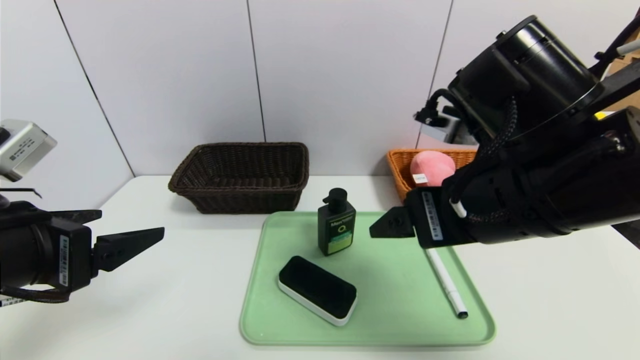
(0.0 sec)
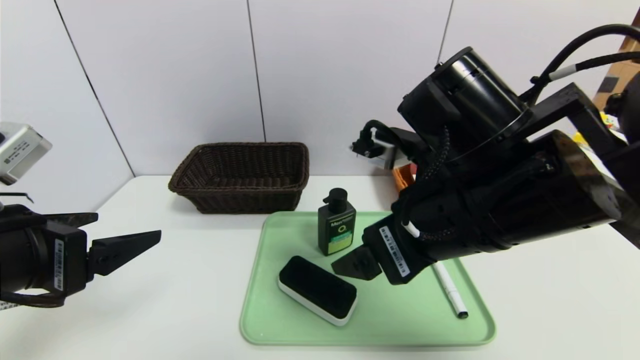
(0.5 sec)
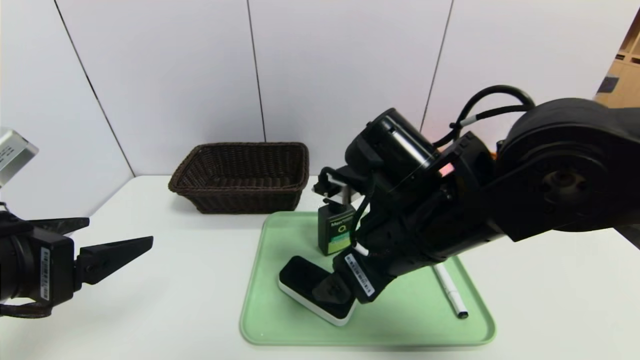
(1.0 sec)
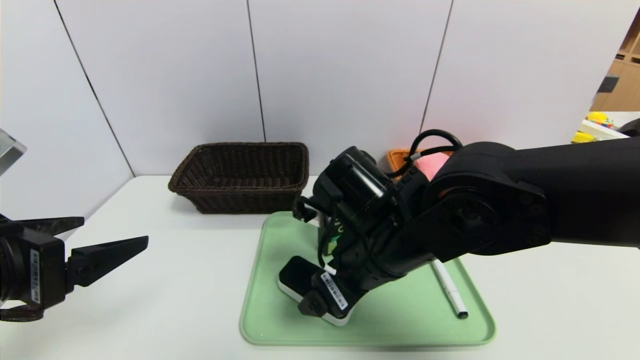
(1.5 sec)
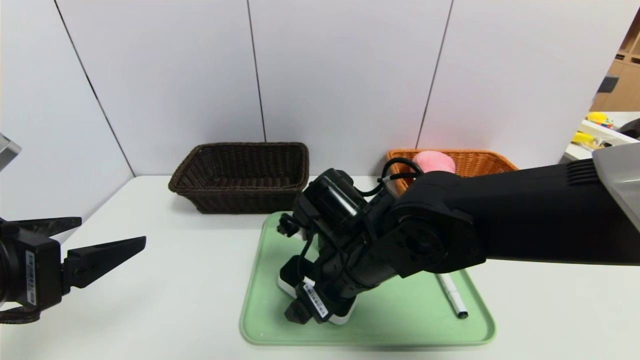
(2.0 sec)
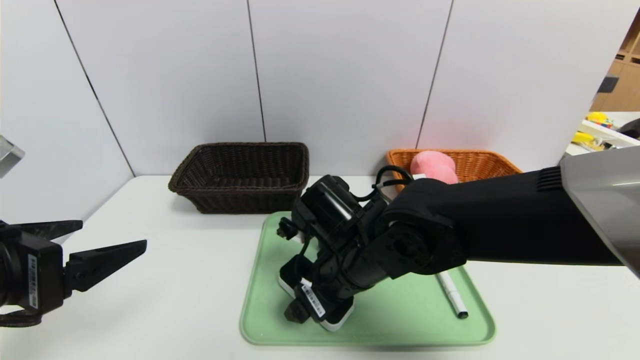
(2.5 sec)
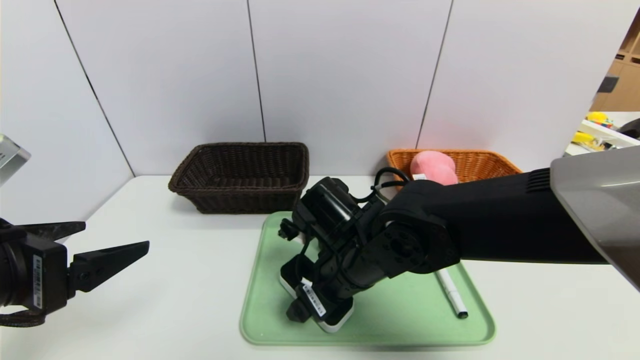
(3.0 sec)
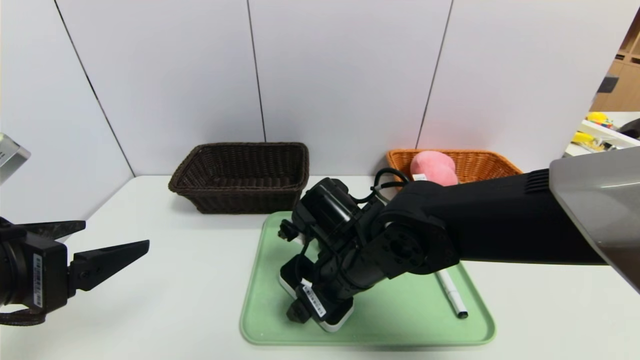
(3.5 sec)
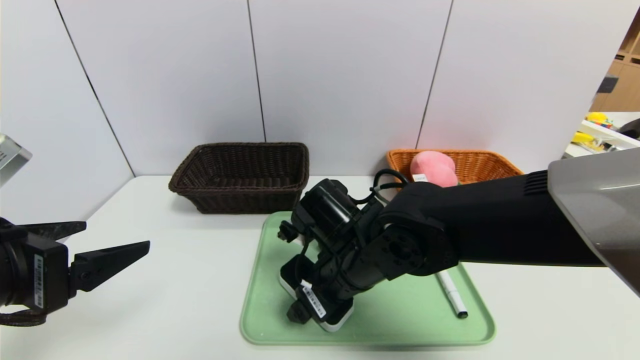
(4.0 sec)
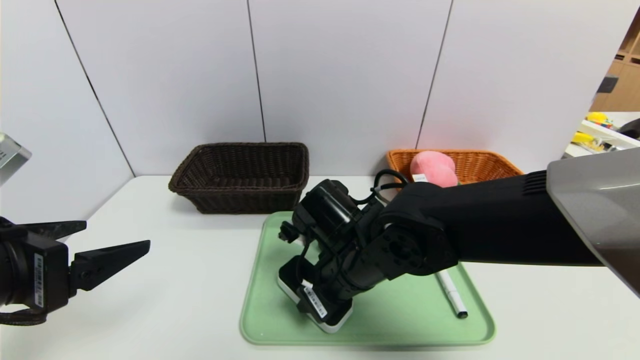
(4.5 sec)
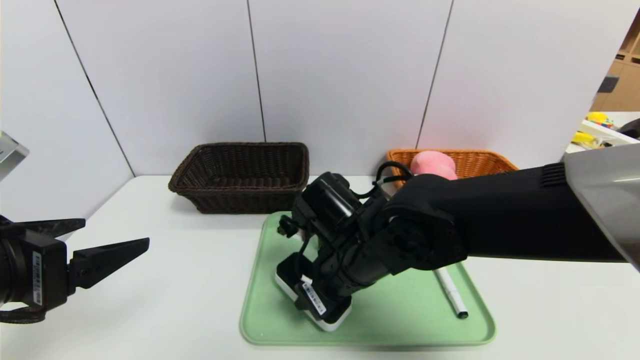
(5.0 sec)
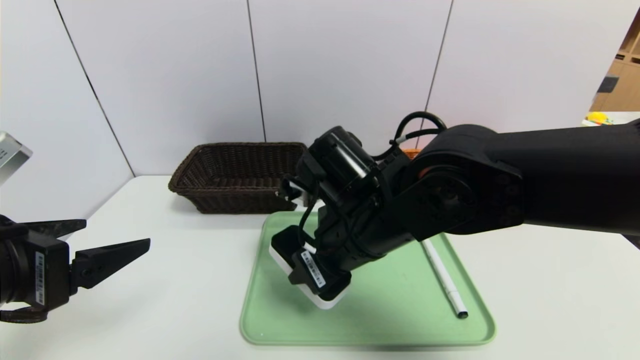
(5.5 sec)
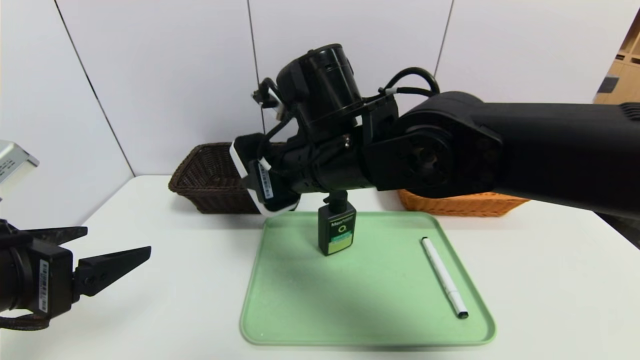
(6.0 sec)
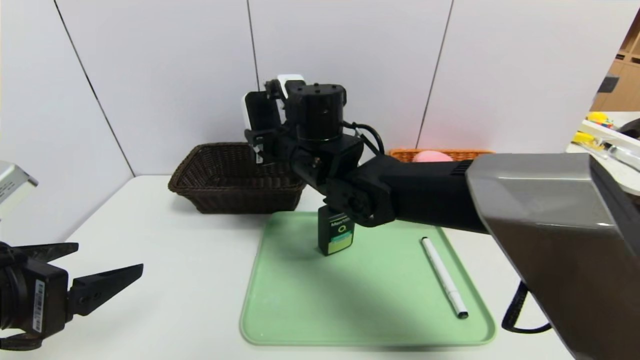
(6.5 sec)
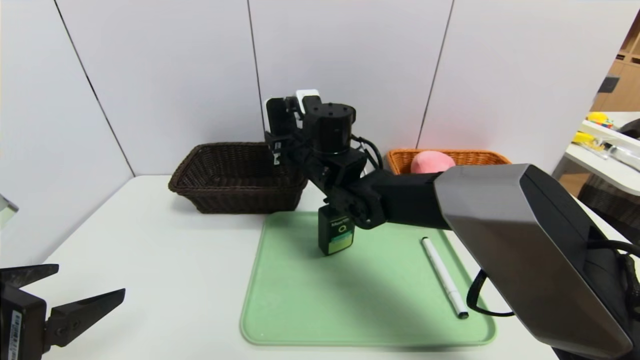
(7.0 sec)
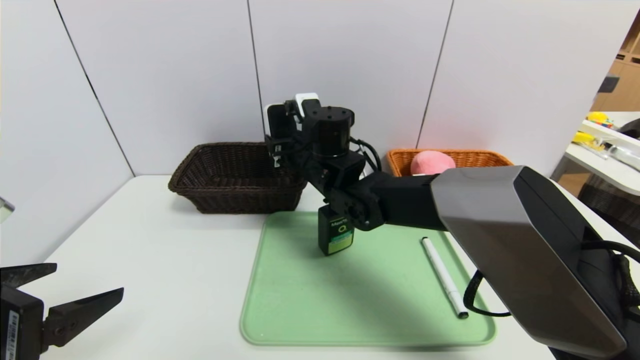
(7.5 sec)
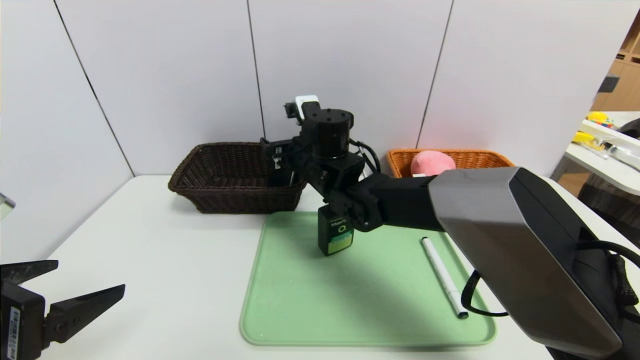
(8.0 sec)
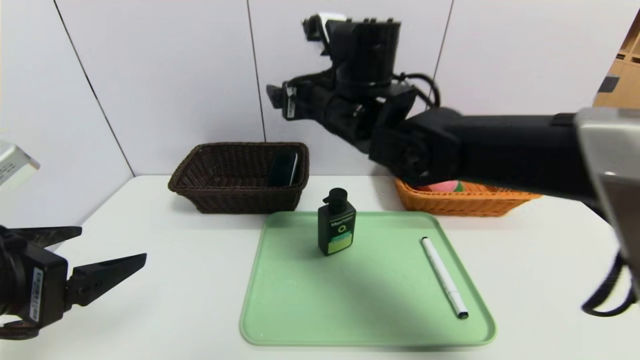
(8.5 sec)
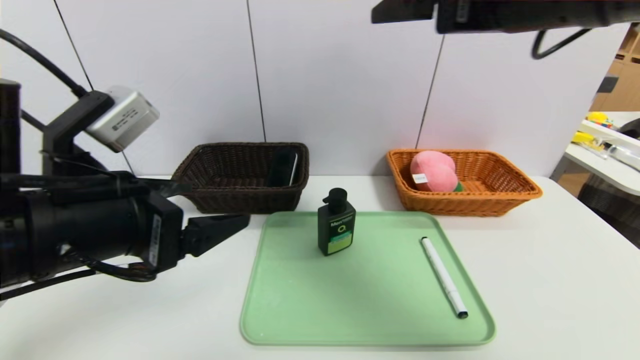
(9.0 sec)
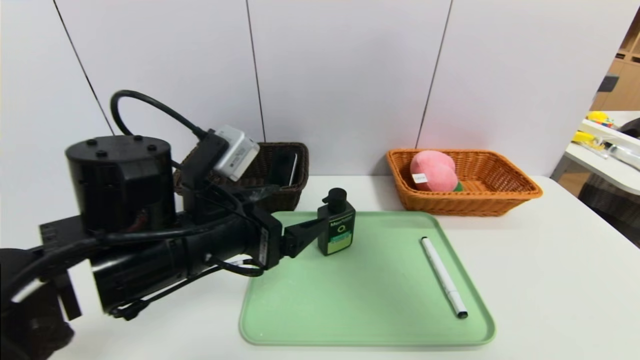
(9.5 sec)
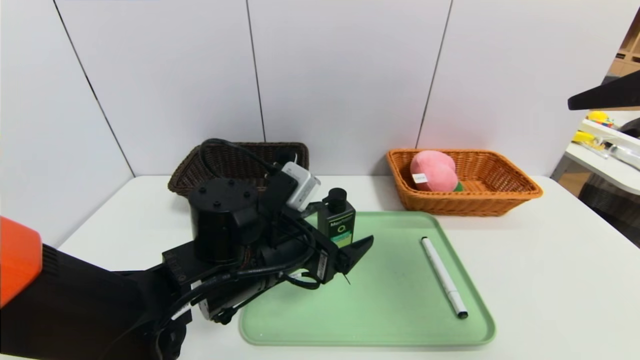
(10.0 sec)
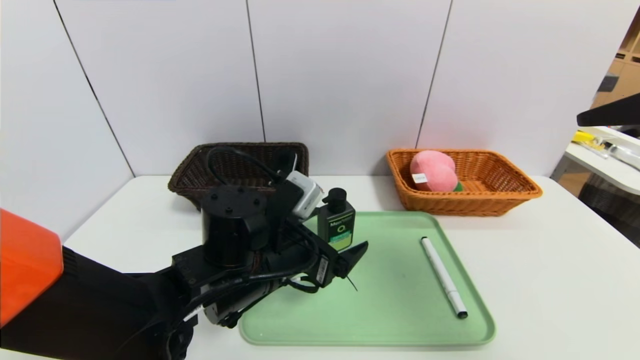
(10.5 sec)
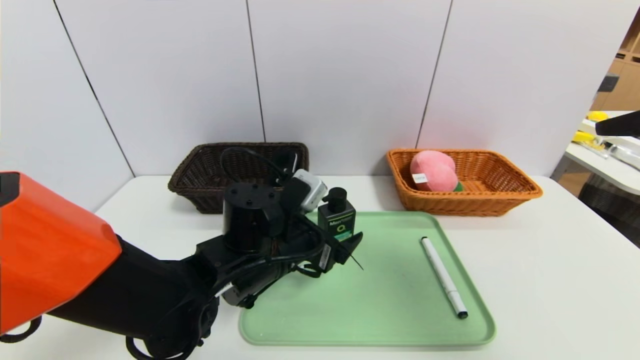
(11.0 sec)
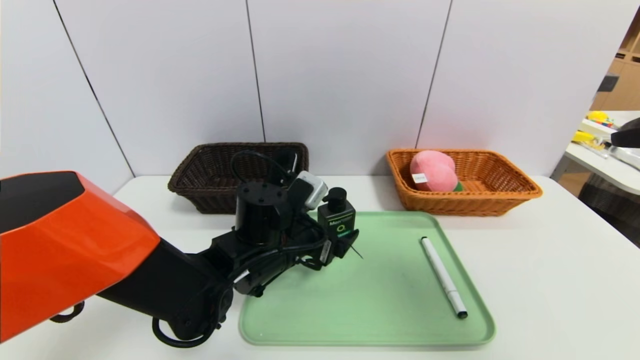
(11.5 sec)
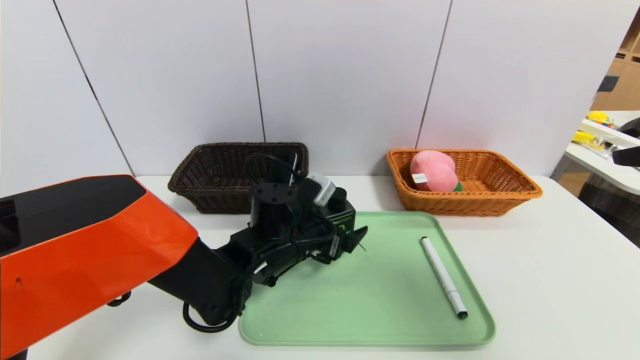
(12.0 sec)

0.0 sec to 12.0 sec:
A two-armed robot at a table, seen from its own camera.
Task of the whole recording: place the food in the right basket with the right gripper, and place the non food items in the left basket with the left gripper.
0.0 sec to 2.0 sec: The right gripper moves downward, to the left and forward, roughly 15 cm.
2.0 sec to 4.0 sec: There are only small adjustments of the grippers.
4.0 sec to 6.0 sec: The right gripper is displaced upward by about 15 cm, and closes.
6.0 sec to 8.0 sec: The right gripper goes some 15 cm forward and downward, and opens up.
8.0 sec to 10.0 sec: The left gripper goes some 25 cm to the right and forward; the right gripper is displaced to the right, backward and upward by roughly 40 cm.
10.0 sec to 12.0 sec: The left gripper goes about 10 cm forward and downward.

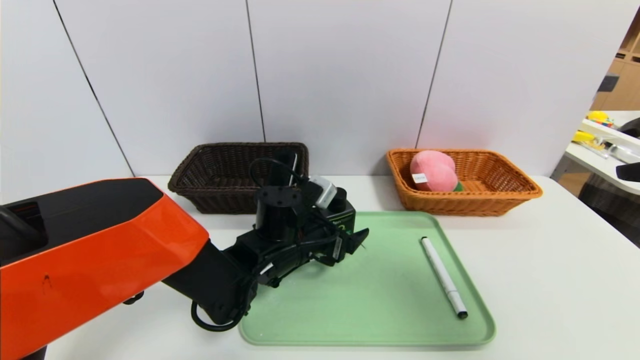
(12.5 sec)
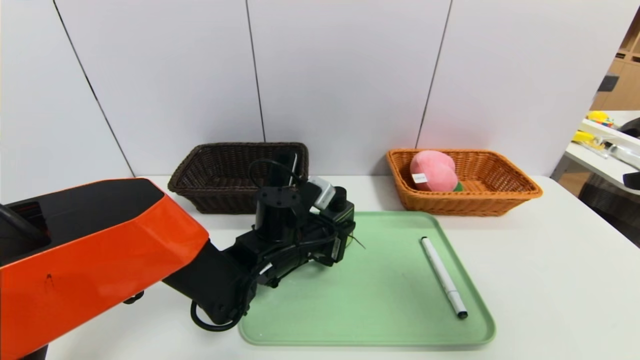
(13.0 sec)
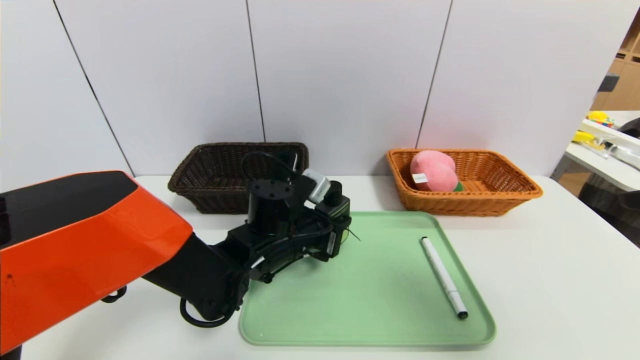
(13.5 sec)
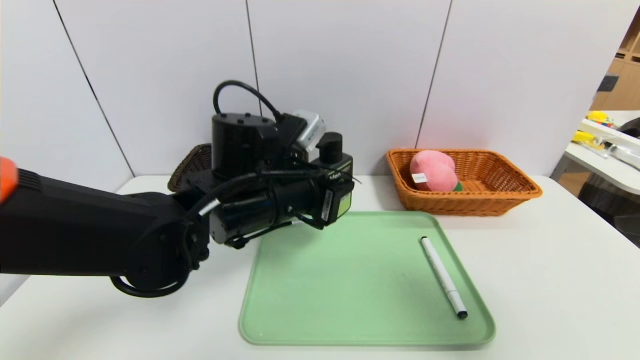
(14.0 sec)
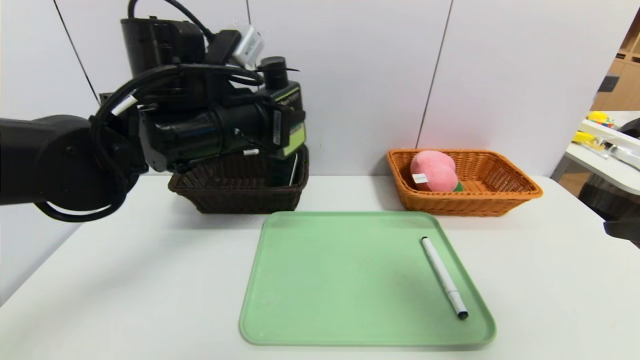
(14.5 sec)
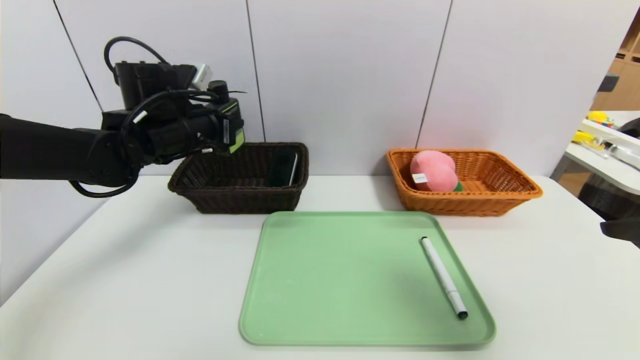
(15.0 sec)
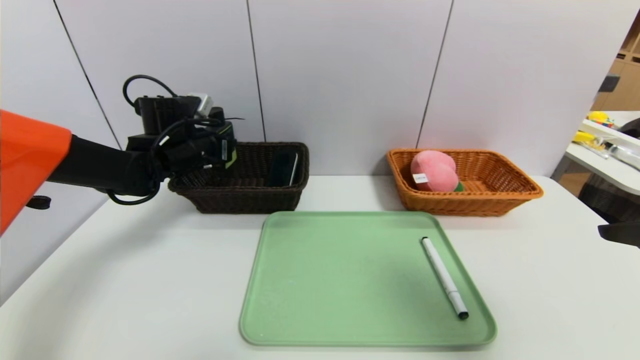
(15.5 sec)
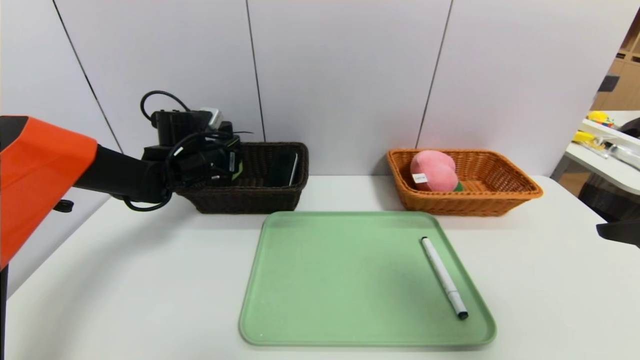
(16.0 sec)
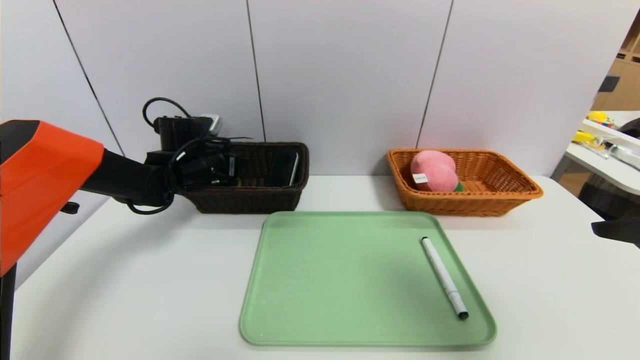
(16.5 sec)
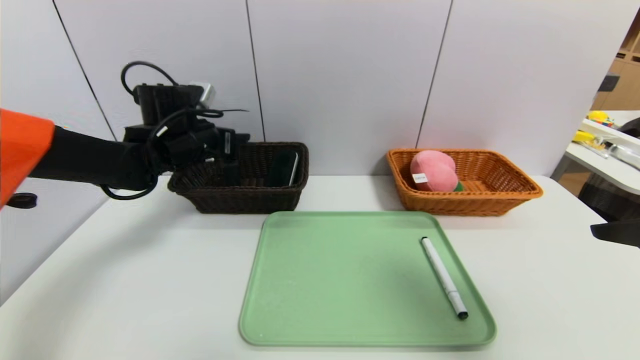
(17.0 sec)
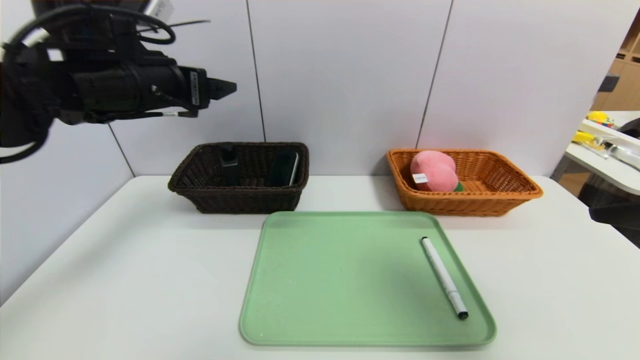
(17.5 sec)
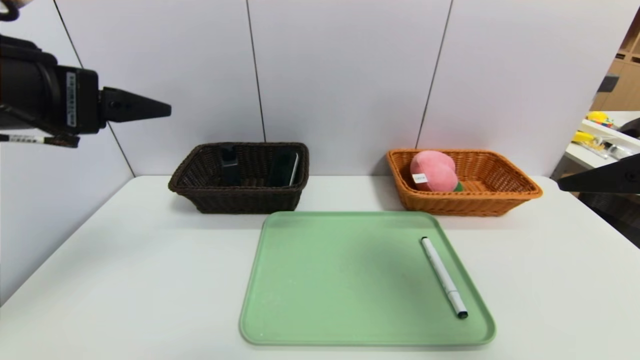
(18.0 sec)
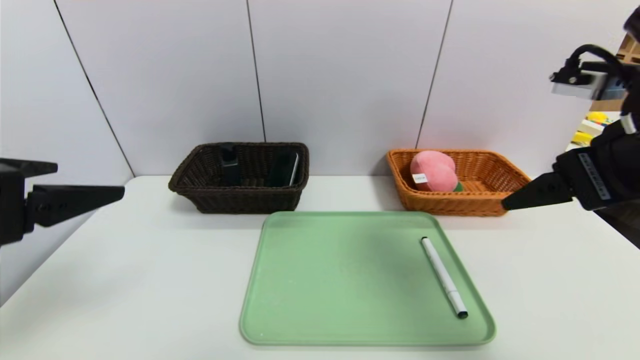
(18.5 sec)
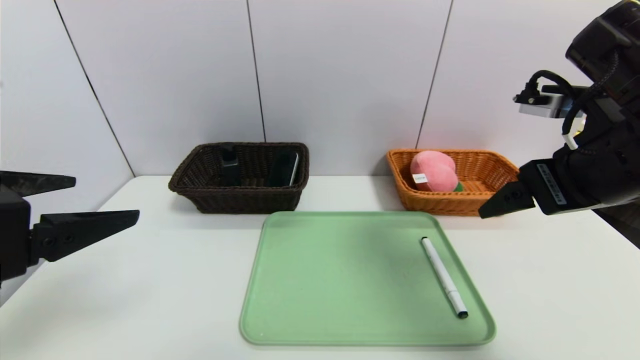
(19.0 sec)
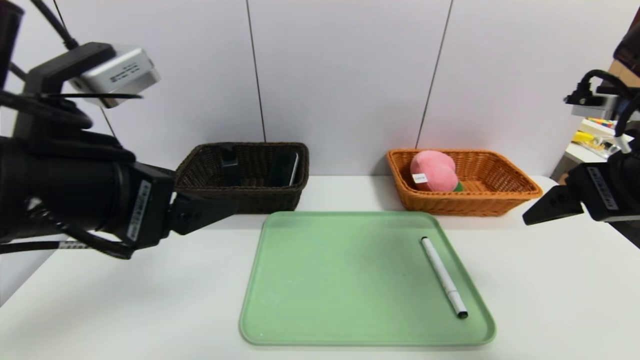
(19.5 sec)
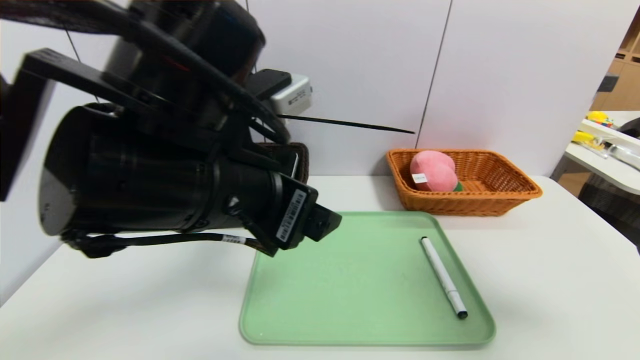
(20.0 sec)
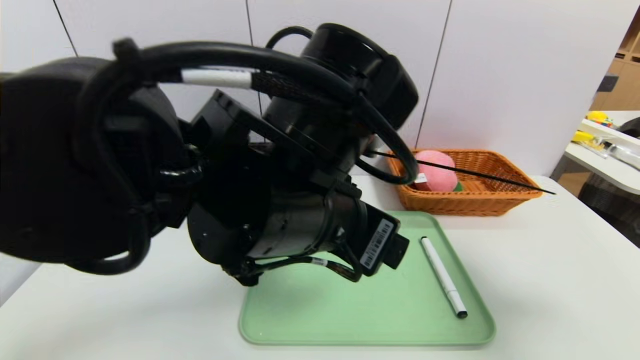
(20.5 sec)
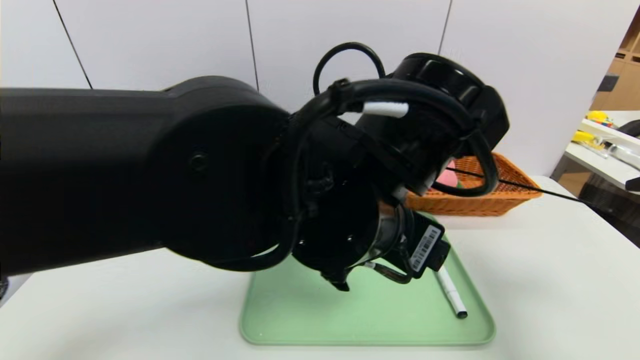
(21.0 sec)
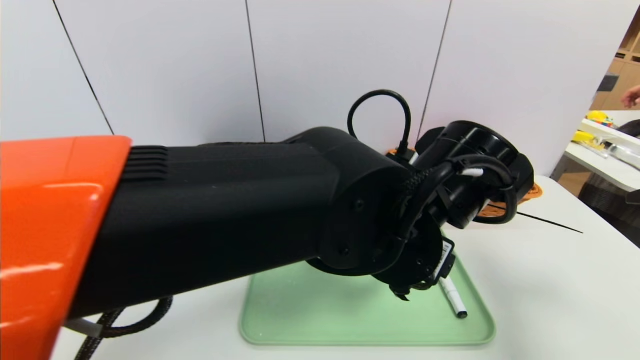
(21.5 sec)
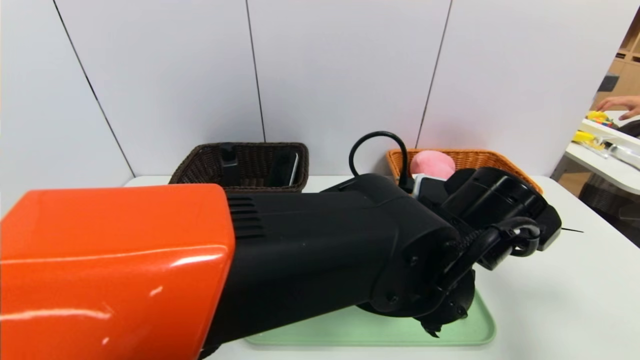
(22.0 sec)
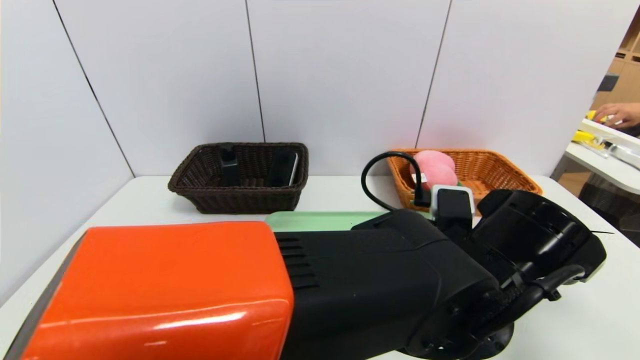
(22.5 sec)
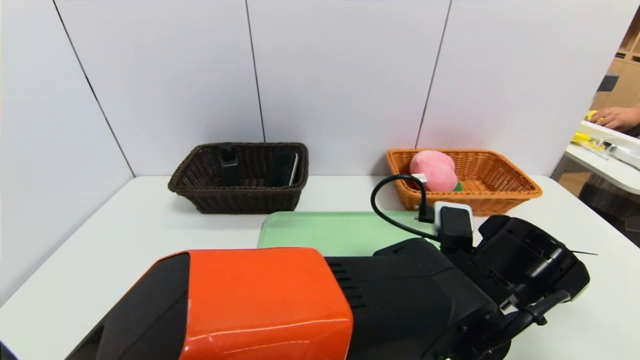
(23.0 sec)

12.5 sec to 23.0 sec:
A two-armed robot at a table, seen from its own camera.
Task of the whole recording: place the food in the right basket with the right gripper, and place the non food items in the left basket with the left gripper.
Step, 12.5 sec to 17.0 sec: Grasp the hard cleanser and put it in the left basket.
12.5 sec to 14.5 sec: The left gripper heads upward and to the left, covering roughly 20 cm, and closes its fingers.
14.5 sec to 16.5 sec: The left gripper is displaced forward, downward and to the left by roughly 20 cm, and opens.
16.5 sec to 19.0 sec: The left gripper moves backward and upward, roughly 35 cm; the right gripper shifts approximately 10 cm forward and to the left.
19.0 sec to 21.0 sec: The right gripper moves to the right and backward, approximately 15 cm; the left gripper is displaced to the right by approximately 30 cm.
21.0 sec to 23.0 sec: The left gripper travels downward and to the right by some 15 cm.
